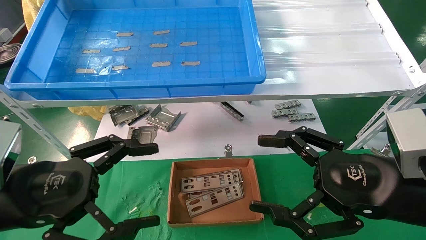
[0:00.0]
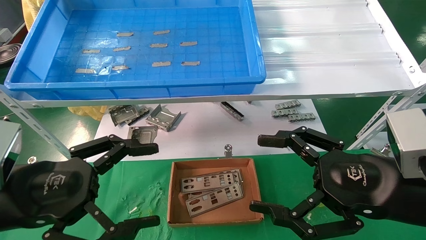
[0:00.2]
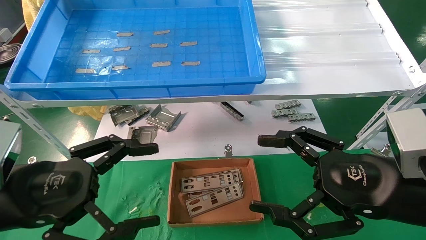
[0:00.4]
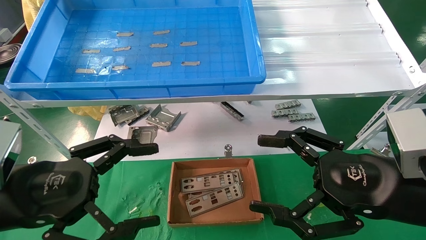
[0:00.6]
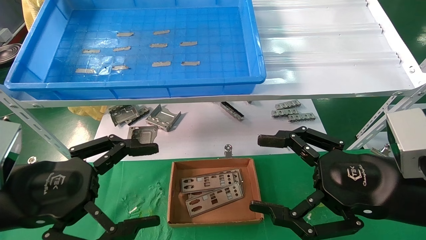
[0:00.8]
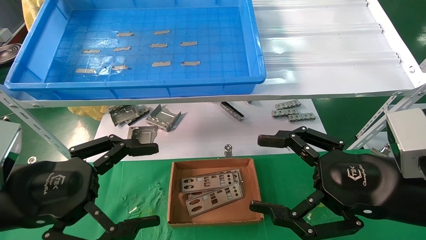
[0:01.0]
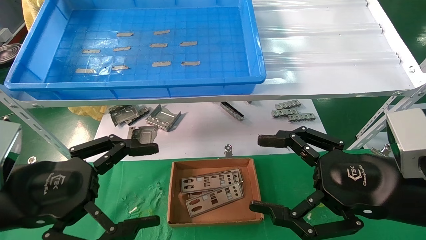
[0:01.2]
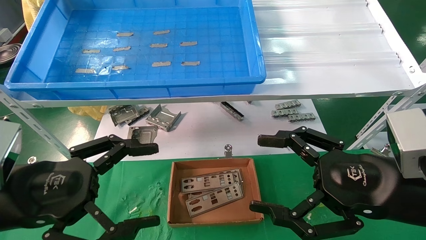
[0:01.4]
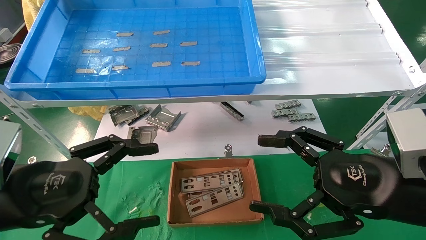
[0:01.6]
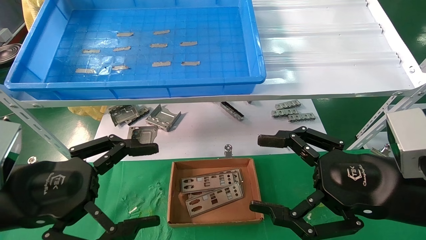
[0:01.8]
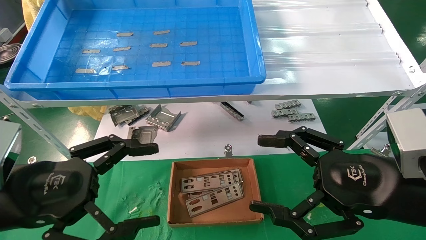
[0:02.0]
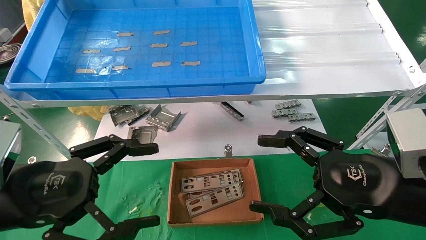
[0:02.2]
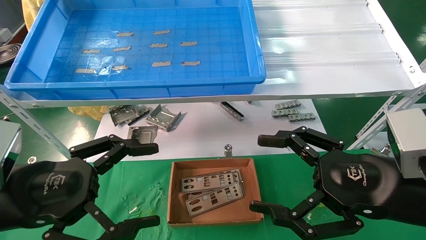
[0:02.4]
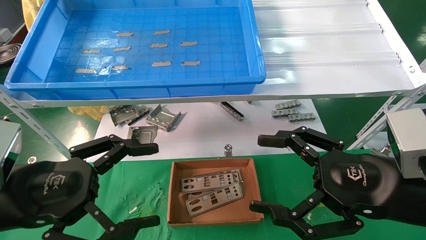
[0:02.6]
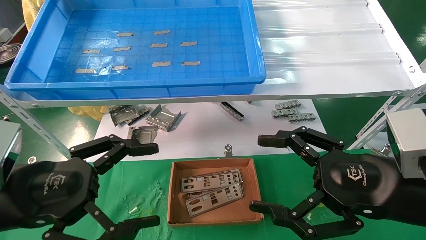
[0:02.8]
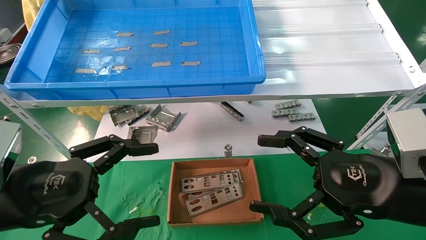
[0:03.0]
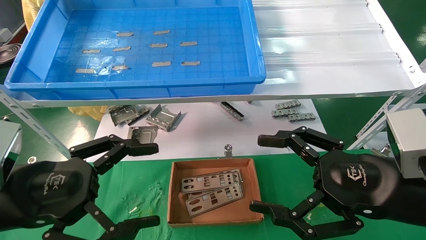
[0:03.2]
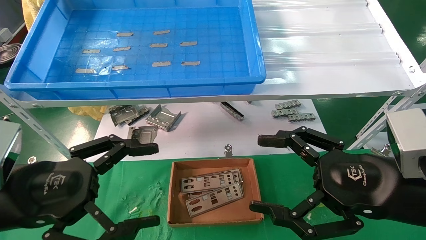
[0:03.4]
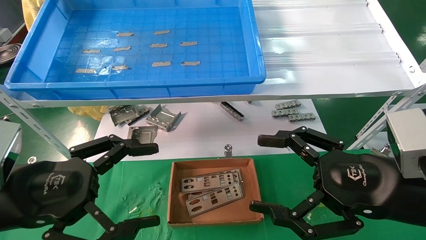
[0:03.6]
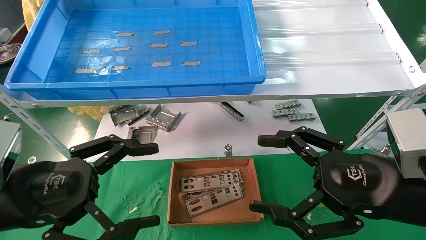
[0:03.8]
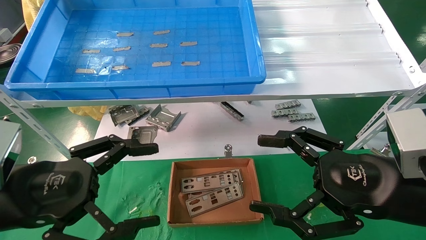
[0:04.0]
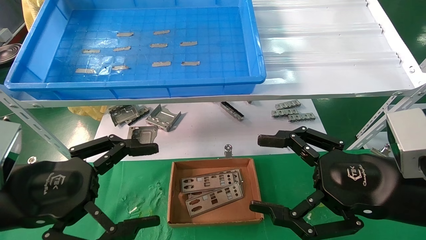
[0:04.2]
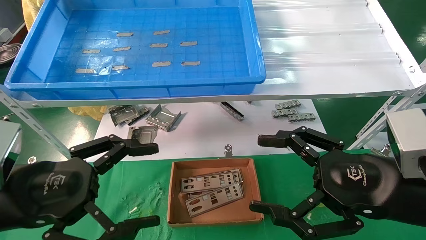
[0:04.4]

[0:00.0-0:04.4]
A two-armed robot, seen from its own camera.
Task of the whole recording: pick up the parts on the tray and put them in the cardboard box.
0:00.0 to 0:04.4: Neither gripper changes place.
